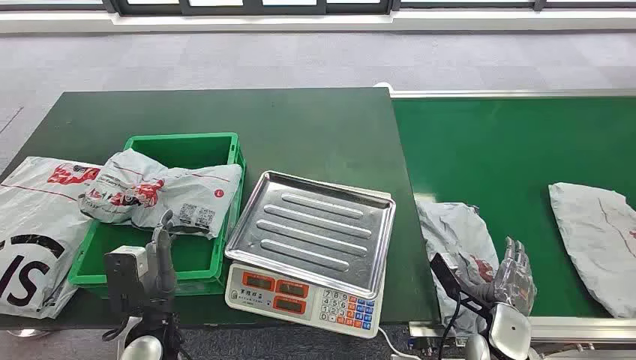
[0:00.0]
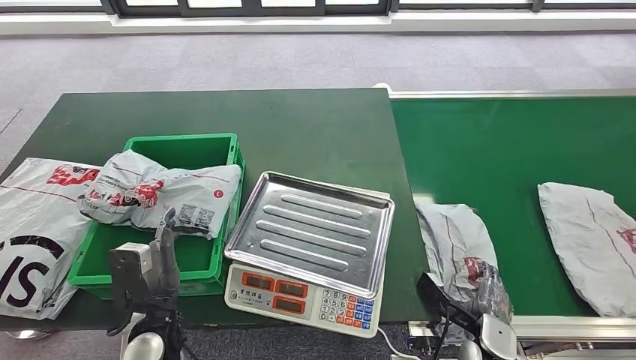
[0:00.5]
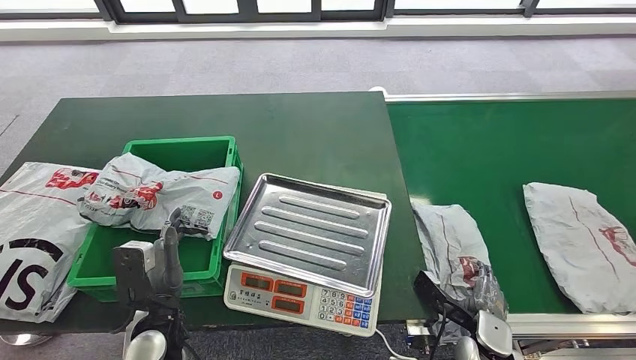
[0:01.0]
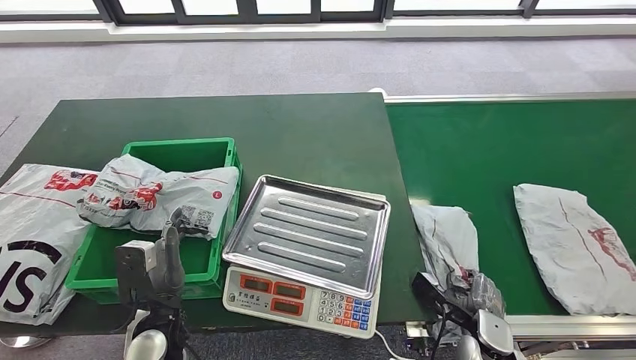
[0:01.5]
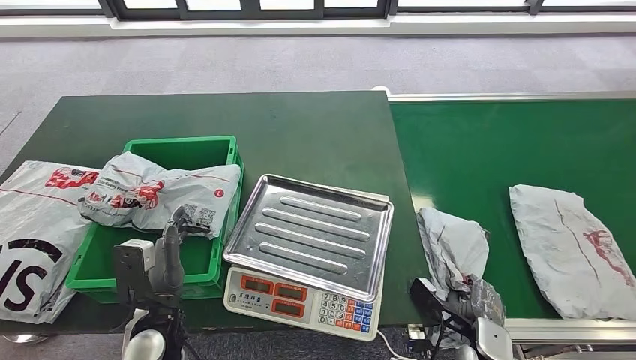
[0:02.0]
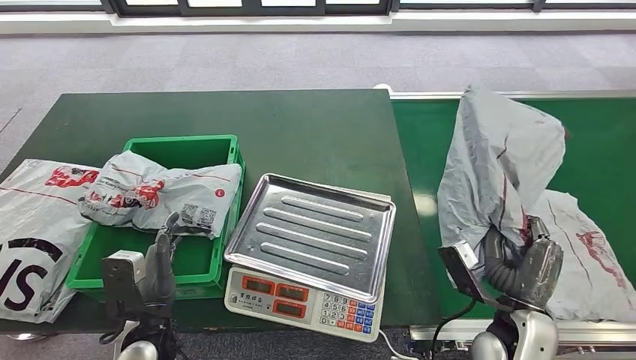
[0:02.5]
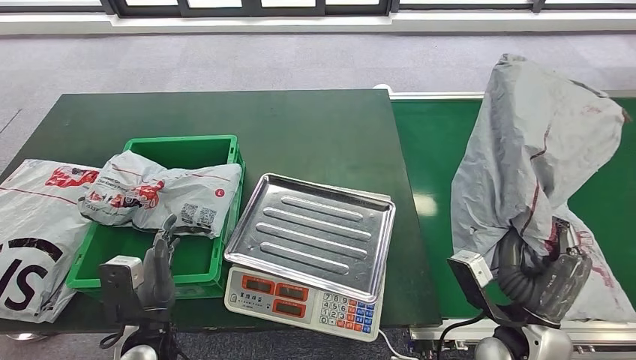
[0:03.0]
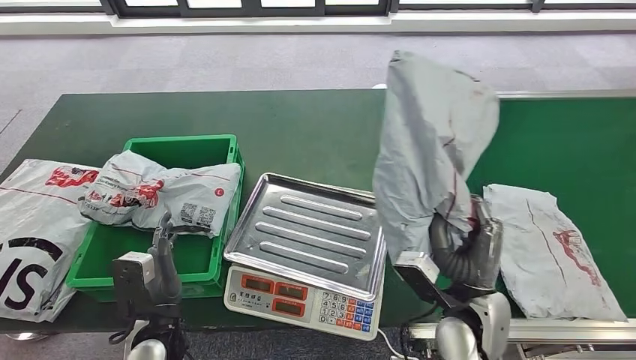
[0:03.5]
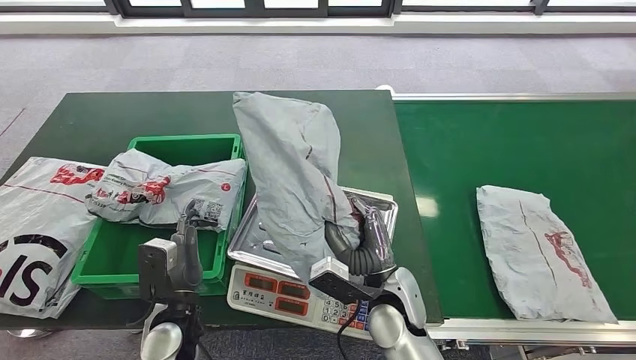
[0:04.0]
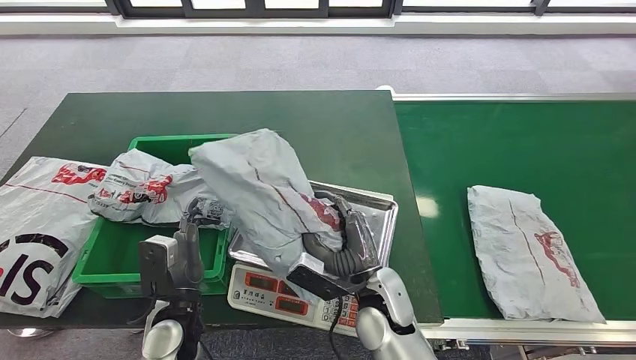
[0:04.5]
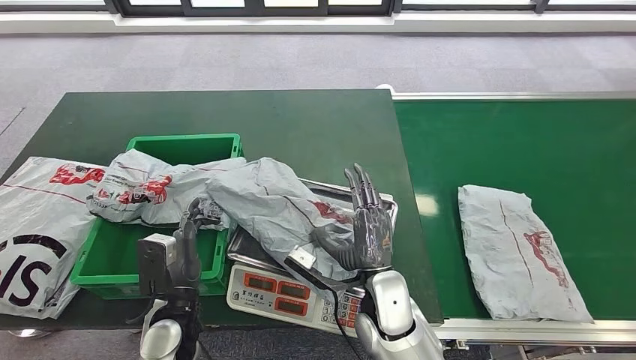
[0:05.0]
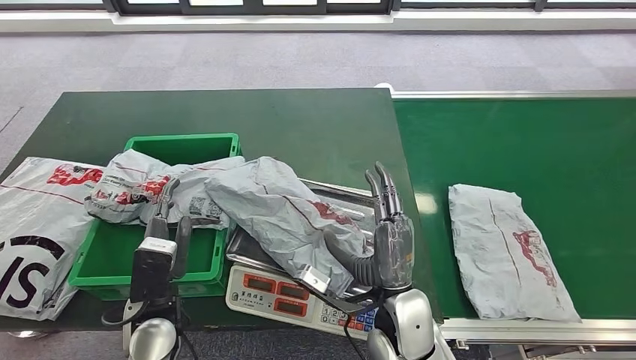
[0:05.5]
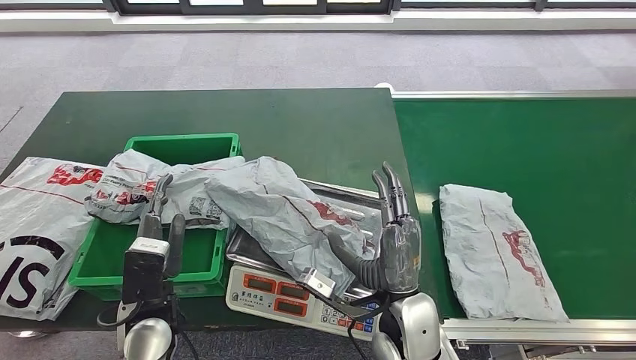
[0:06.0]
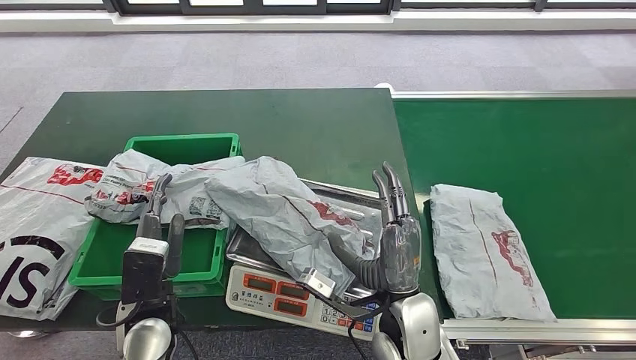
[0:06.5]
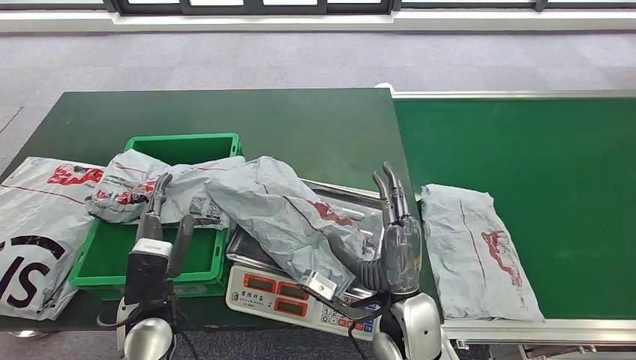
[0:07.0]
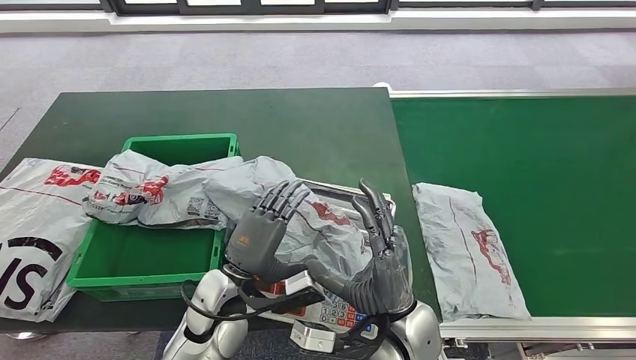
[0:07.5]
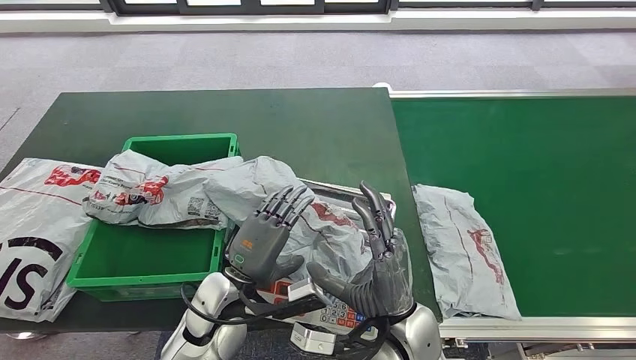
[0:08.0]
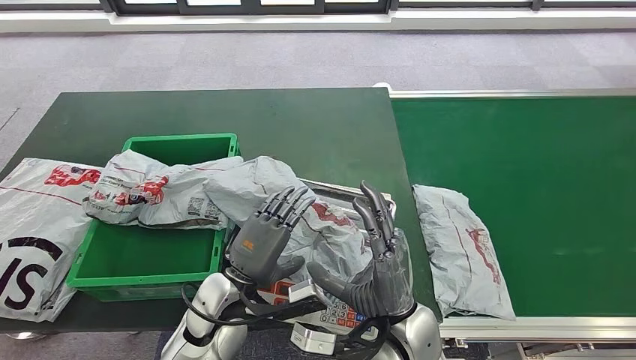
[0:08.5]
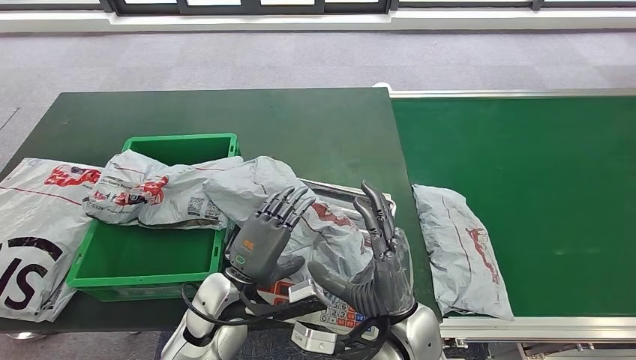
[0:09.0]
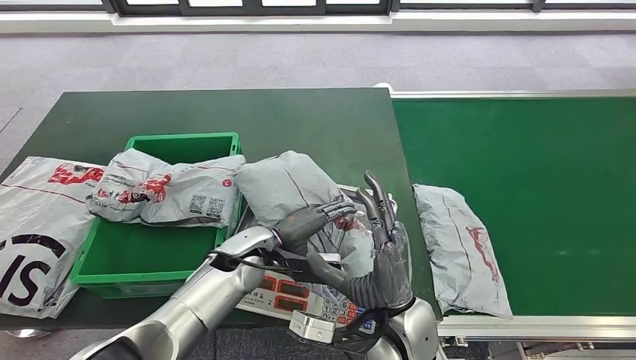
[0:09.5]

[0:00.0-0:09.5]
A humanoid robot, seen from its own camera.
Task of the whole recording: Weigh the package on the weighing device and place it in the left basket.
Step, 0:00.0 to 0:02.5: Pick up the package from the conveyor belt.
Step, 0:03.0 to 0:05.0: Place the package onto the inbound machine.

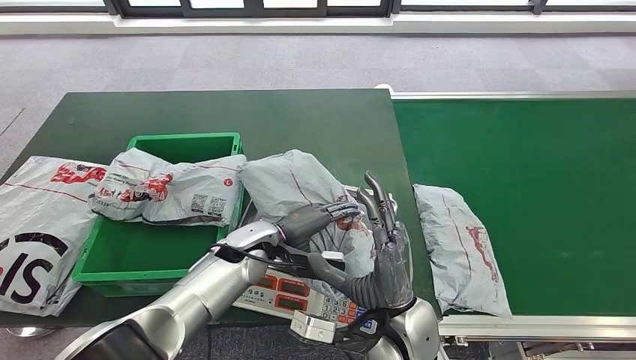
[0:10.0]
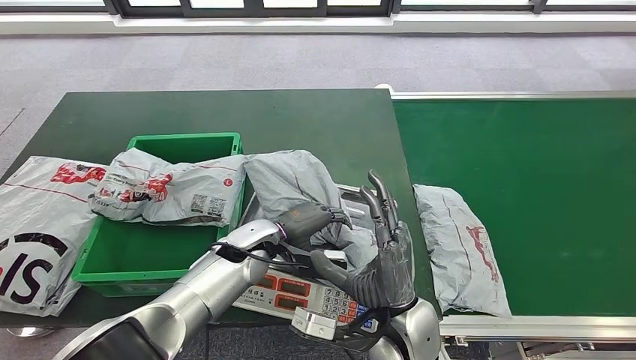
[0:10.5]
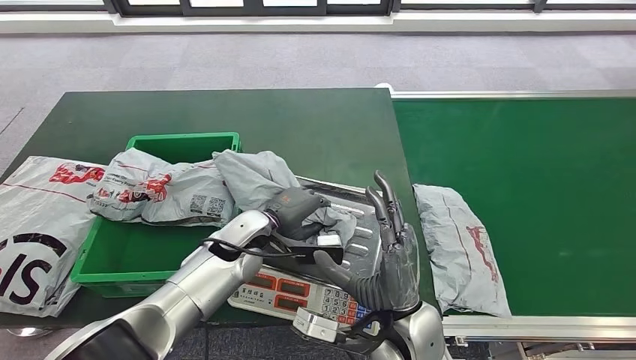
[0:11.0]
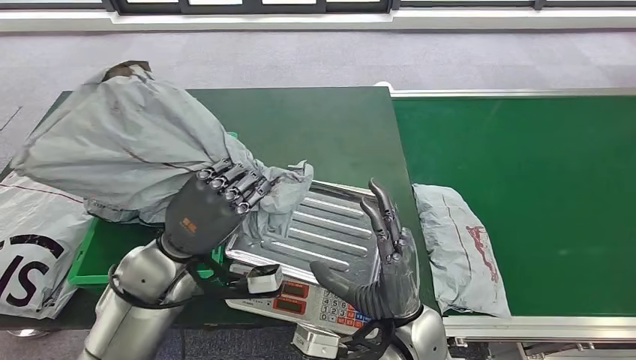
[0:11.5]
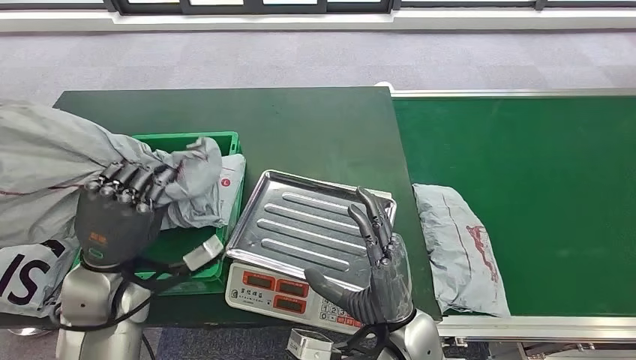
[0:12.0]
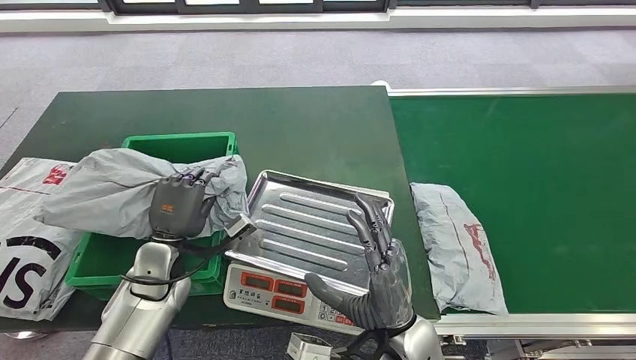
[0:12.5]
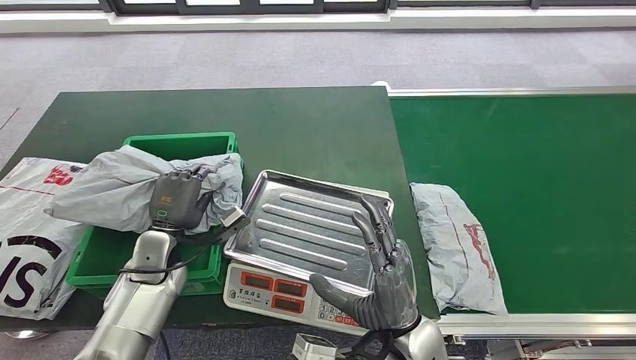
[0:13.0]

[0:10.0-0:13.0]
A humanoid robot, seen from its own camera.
Task of the whole recording: Weigh the package on the weighing device and place it in the left basket.
Step, 0:11.5 to 0:13.0: Place the package into the parcel locker.

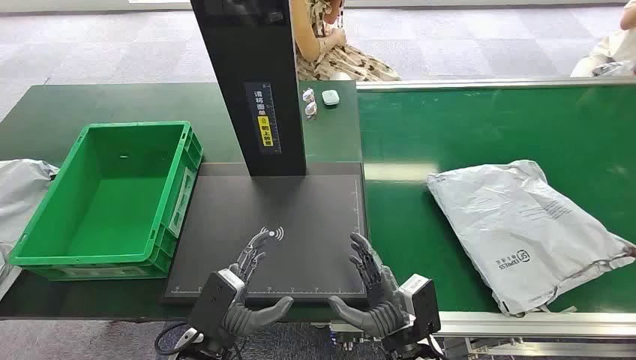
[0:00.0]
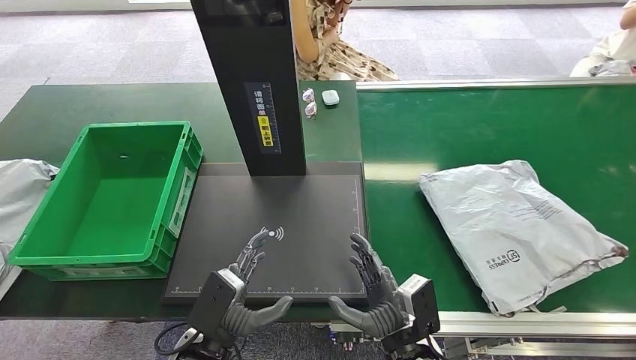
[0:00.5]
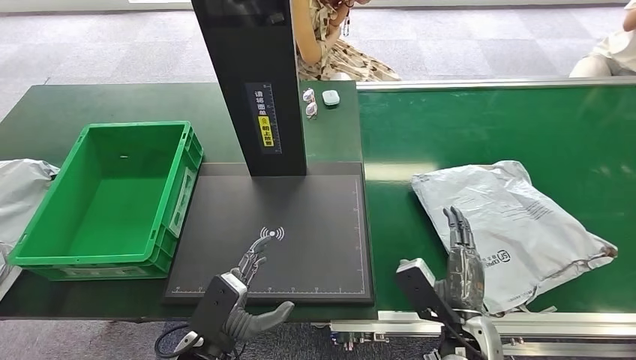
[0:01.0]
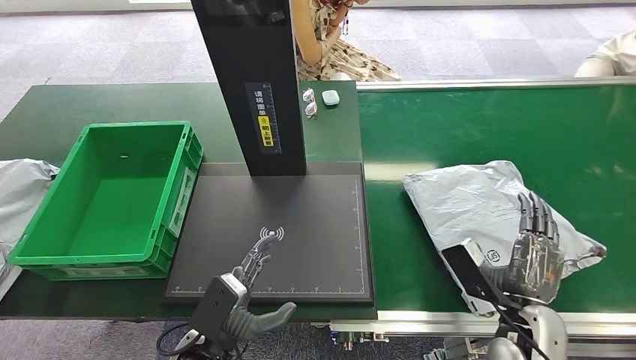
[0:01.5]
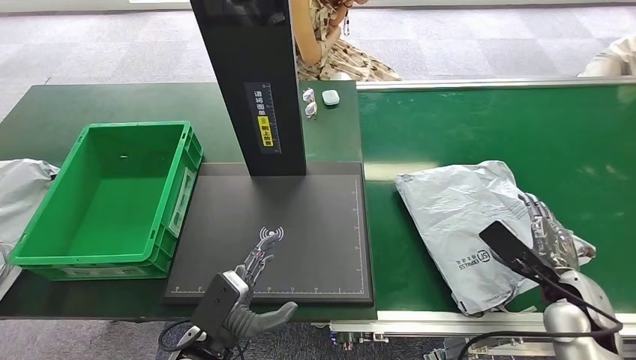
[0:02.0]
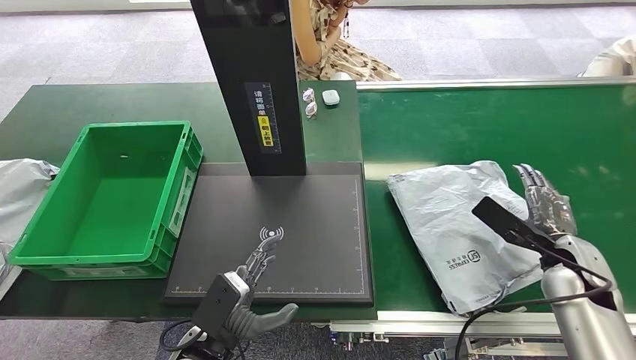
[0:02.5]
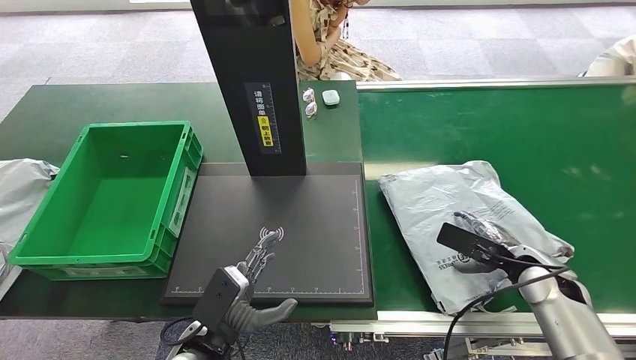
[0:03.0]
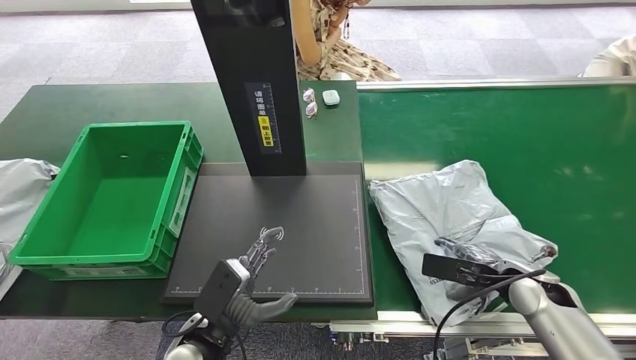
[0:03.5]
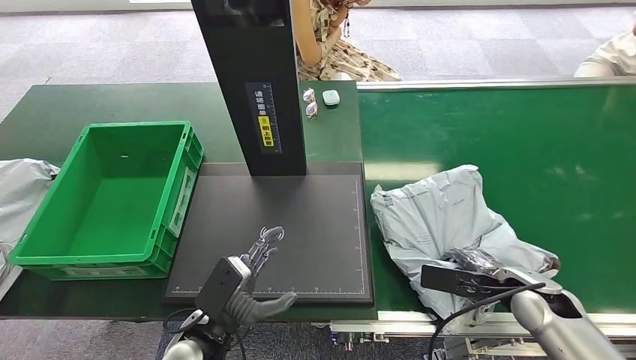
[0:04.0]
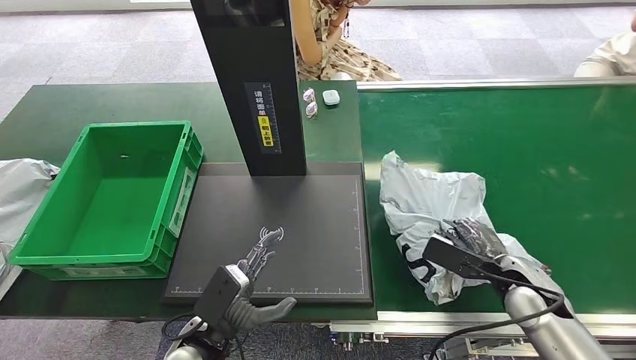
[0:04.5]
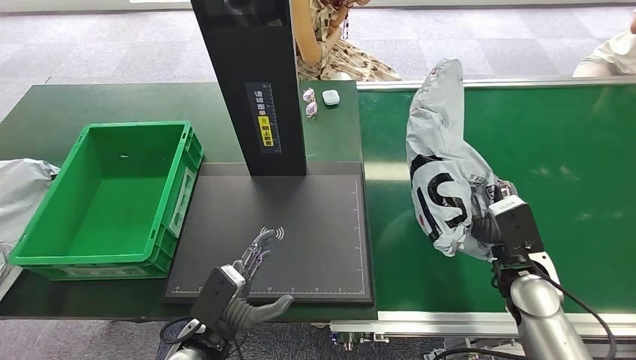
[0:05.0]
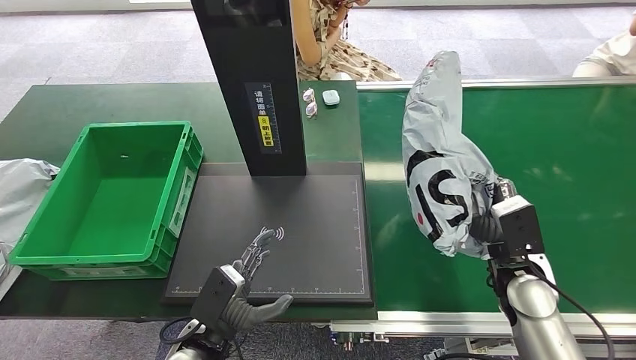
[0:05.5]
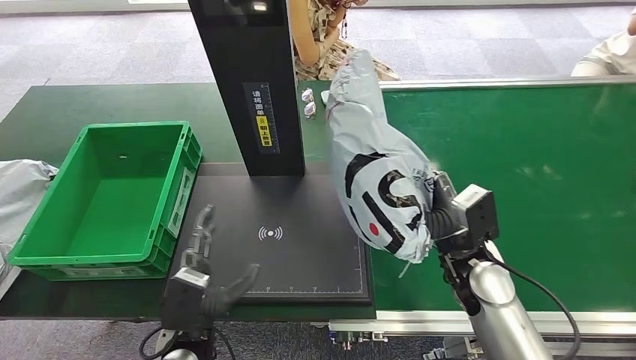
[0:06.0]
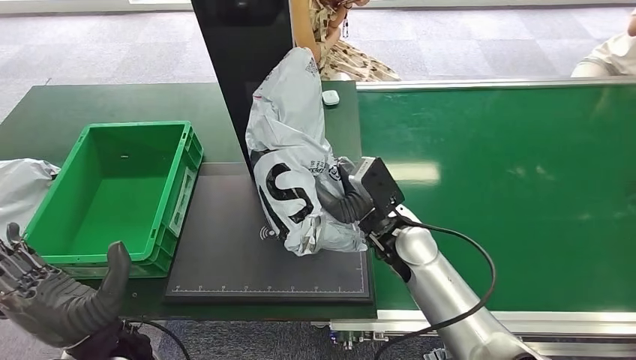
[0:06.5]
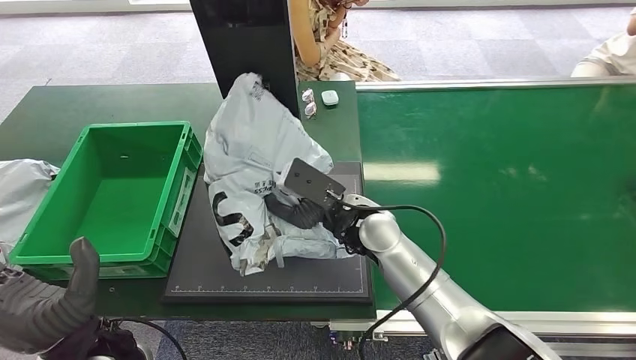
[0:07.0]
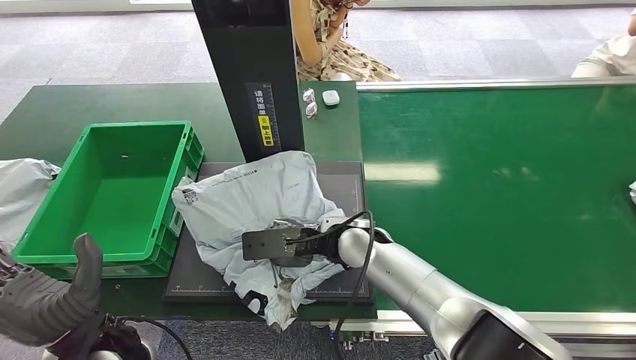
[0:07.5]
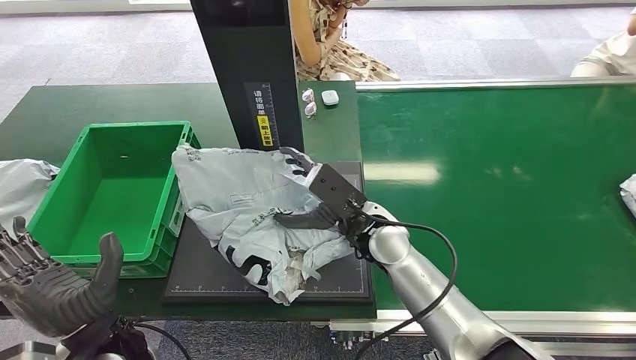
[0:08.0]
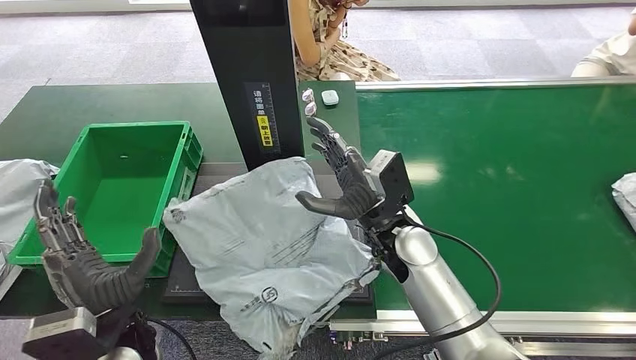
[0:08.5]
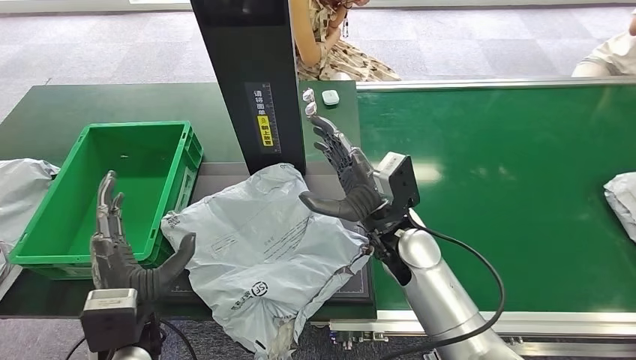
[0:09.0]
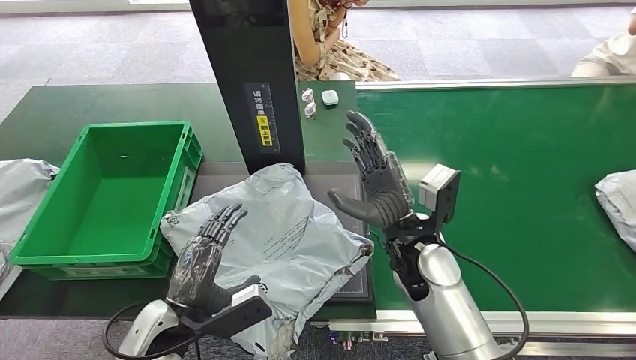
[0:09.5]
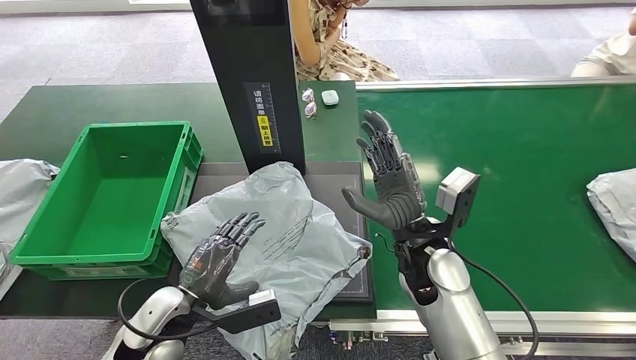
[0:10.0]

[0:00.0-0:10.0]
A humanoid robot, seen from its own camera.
Task of the whole recording: Weigh the package on the weighing device and place it in the left basket.
Step, 0:00.0 to 0:05.0: Pick up the package from the conveyor belt.
Step, 0:06.5 to 0:08.5: Place the package onto the inbound machine.
0:02.0 to 0:04.0: The right hand shifts by about 5 cm.
